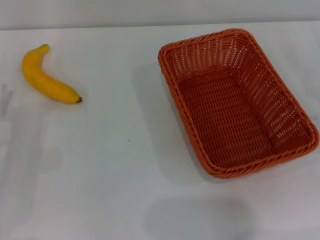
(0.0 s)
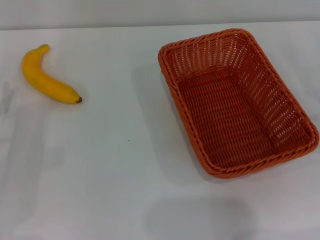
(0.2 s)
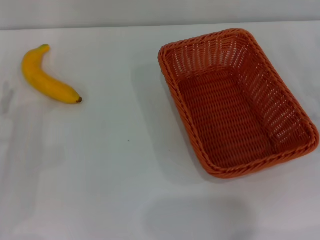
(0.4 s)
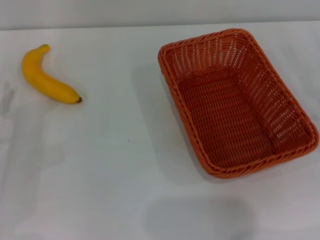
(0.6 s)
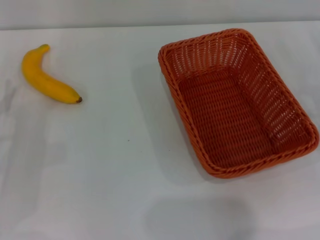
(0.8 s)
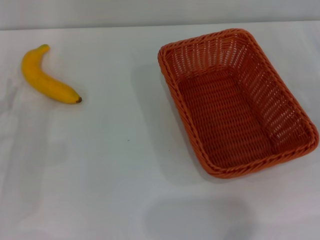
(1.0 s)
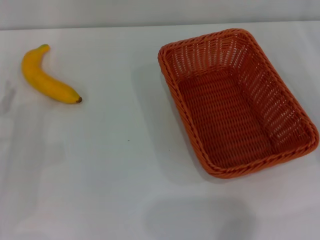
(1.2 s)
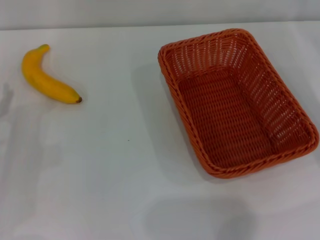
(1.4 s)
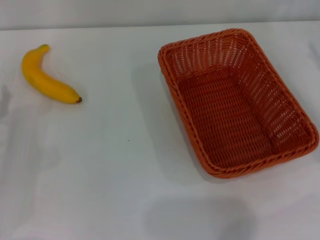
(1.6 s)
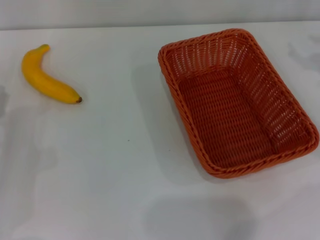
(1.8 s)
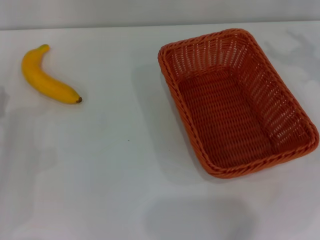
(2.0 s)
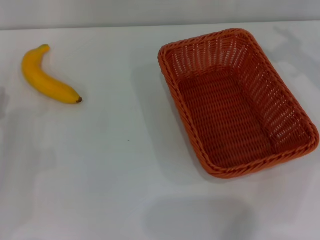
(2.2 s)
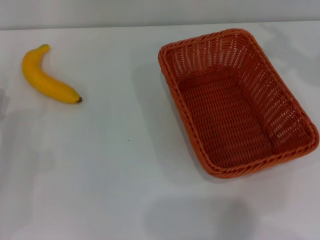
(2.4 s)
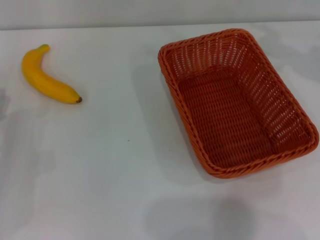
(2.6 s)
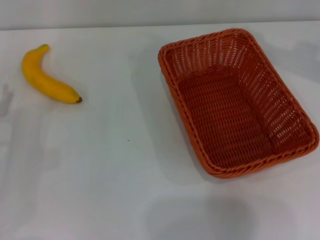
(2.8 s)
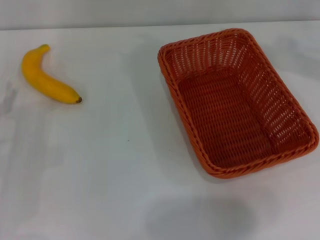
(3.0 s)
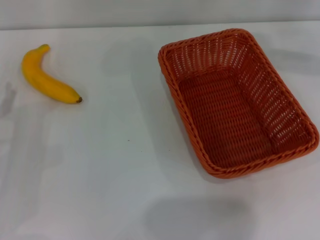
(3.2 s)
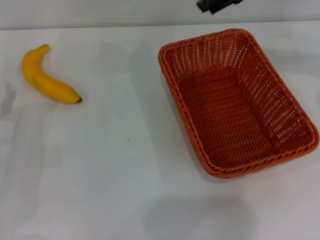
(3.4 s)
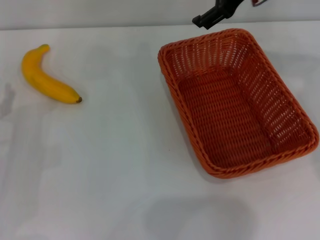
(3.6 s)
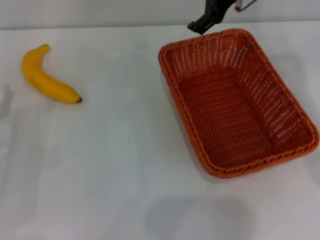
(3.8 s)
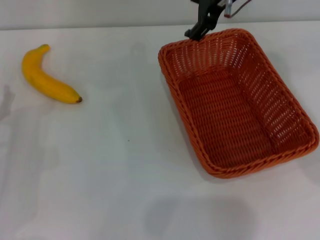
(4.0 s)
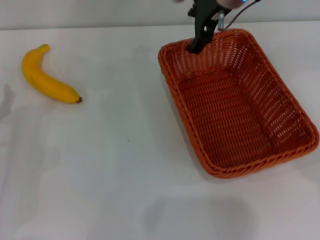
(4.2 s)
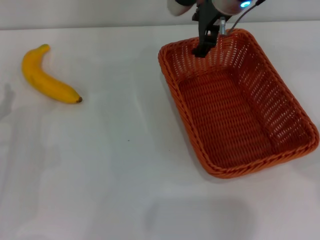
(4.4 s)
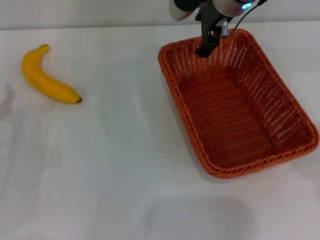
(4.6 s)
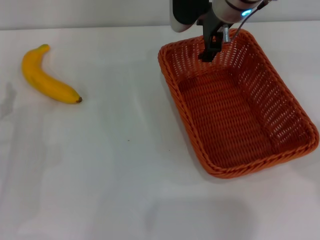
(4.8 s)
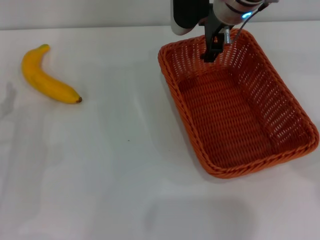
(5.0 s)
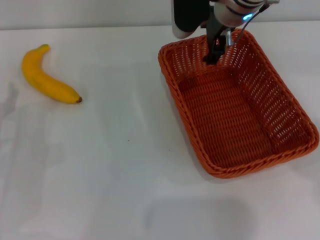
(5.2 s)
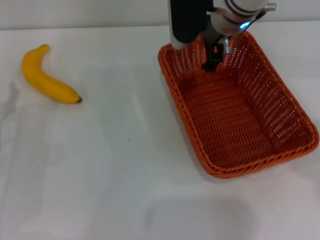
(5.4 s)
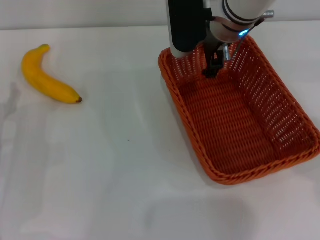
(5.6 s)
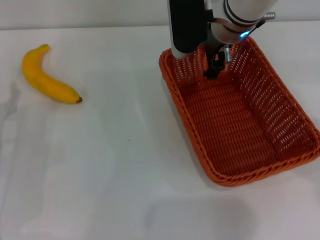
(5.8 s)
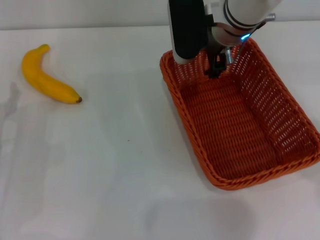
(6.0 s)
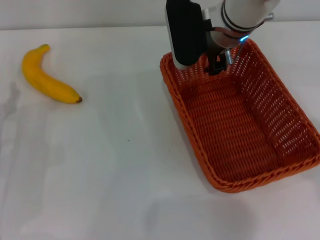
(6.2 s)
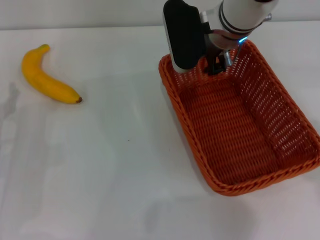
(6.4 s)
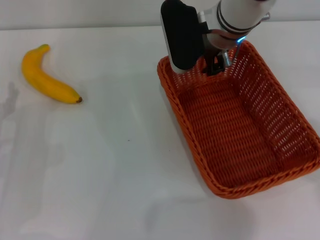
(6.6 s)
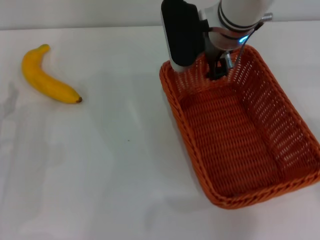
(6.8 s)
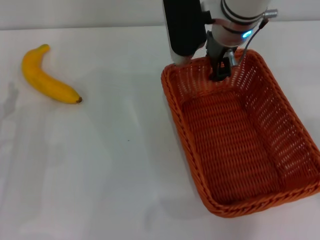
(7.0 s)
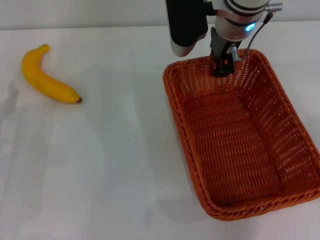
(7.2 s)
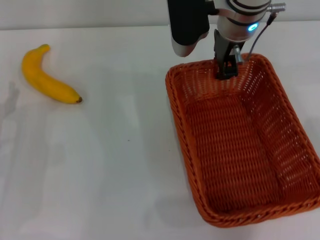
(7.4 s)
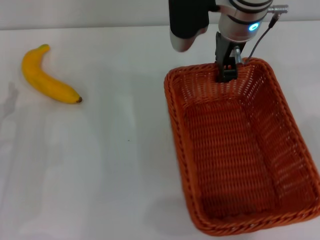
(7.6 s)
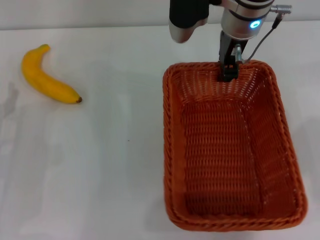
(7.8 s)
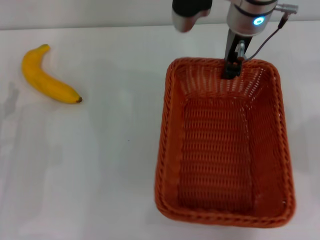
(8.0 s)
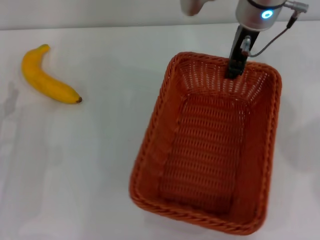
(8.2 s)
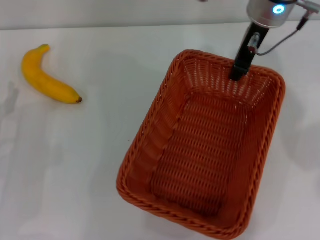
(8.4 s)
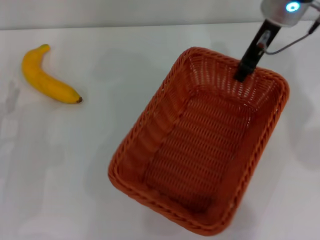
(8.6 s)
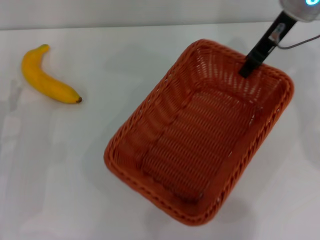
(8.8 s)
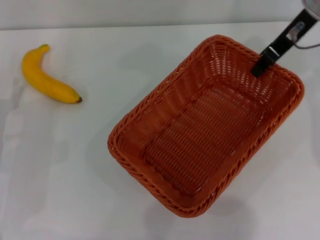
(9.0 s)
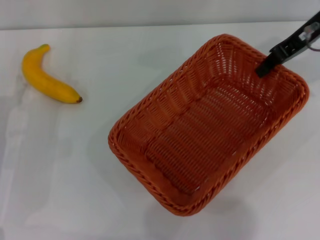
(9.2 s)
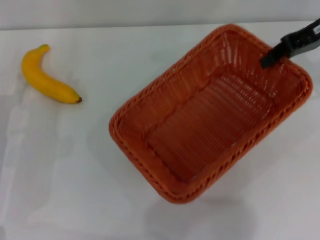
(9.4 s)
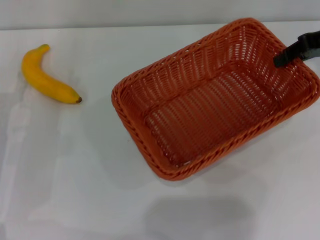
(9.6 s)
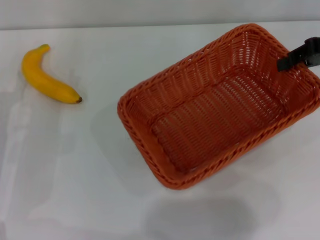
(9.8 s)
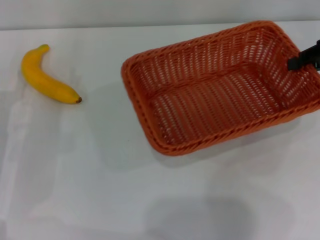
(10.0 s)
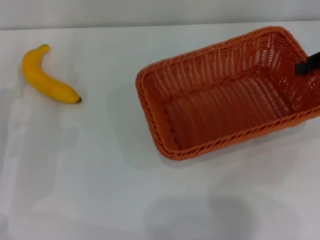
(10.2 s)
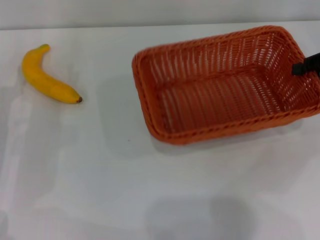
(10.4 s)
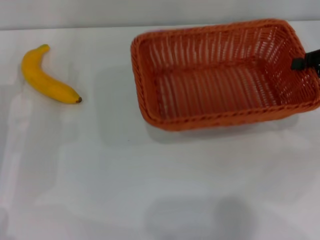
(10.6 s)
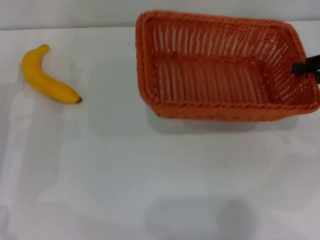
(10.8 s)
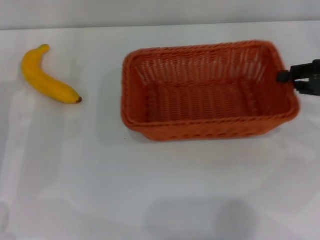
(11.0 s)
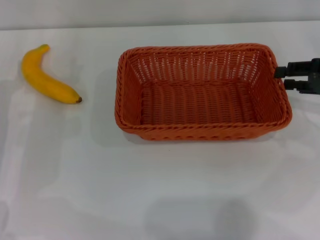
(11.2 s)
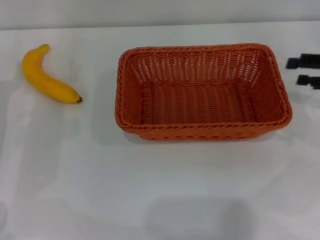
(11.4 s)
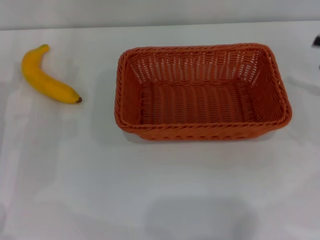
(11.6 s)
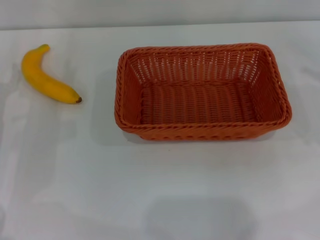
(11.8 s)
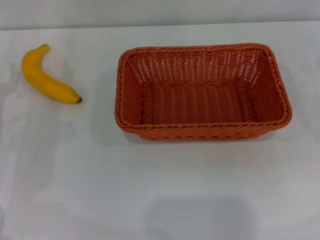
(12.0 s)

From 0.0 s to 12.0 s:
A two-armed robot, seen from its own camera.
Step, from 0.0 s to 9.2 s: Pick up the light basket with the right gripper.
Step, from 9.6 s to 11.8 s: Place the light basket in the center of view with the right gripper.
From 3.0 s to 4.4 s: The right gripper moves to the left, roughly 15 cm.
From 4.4 s to 6.0 s: The grippers make only small movements.
From 6.0 s to 7.6 s: The right gripper closes.
From 7.6 s to 9.0 s: The right gripper shifts some 15 cm to the right.
From 9.0 s to 10.4 s: The right gripper is displaced to the right, downward and backward by some 15 cm.
From 10.4 s to 12.0 s: The right gripper heads to the right and backward, covering about 10 cm, and opens up.

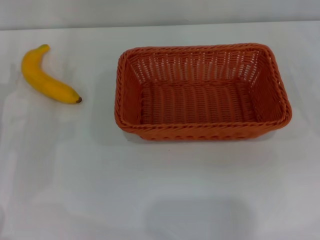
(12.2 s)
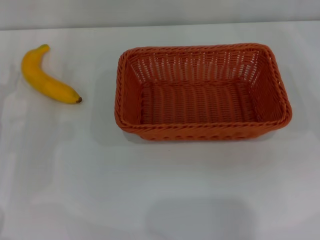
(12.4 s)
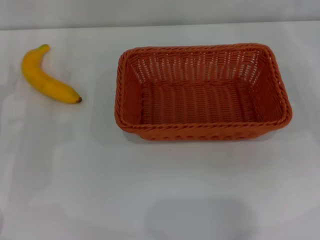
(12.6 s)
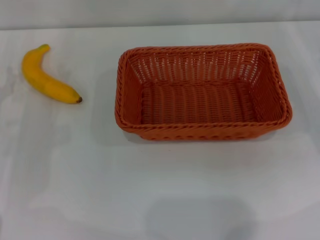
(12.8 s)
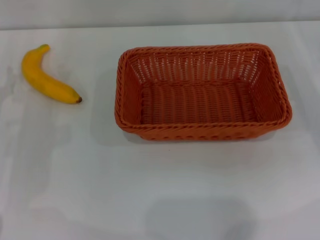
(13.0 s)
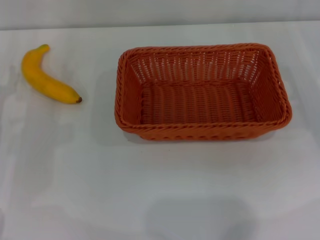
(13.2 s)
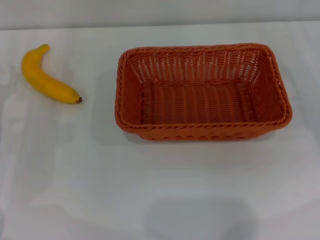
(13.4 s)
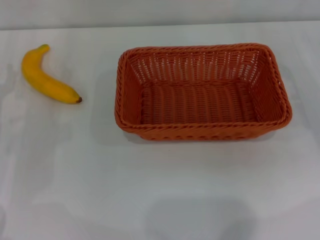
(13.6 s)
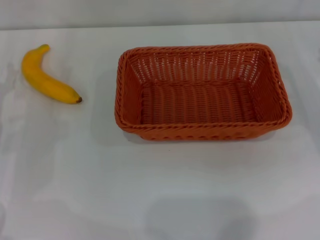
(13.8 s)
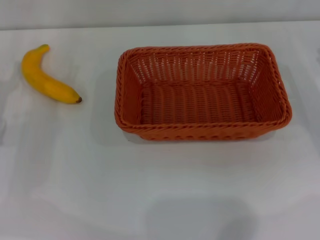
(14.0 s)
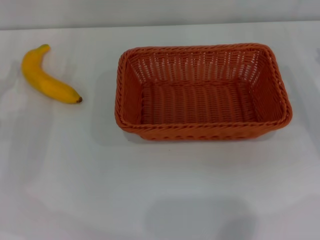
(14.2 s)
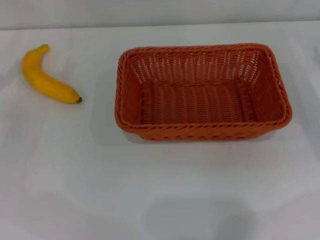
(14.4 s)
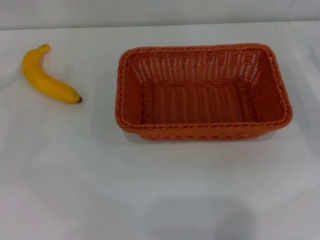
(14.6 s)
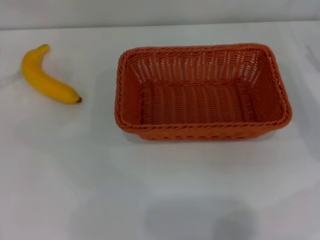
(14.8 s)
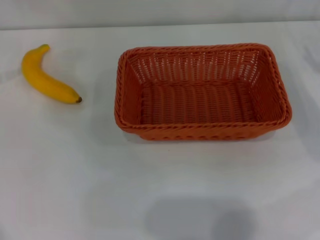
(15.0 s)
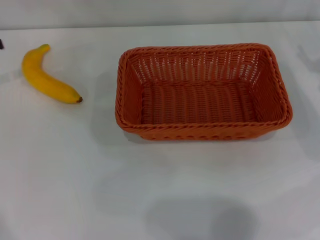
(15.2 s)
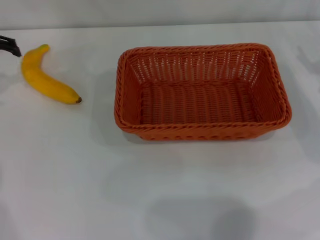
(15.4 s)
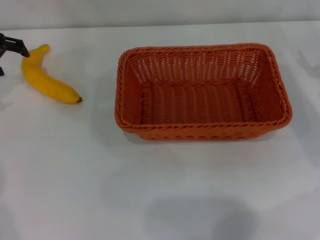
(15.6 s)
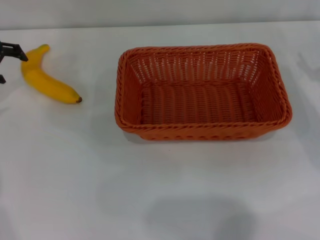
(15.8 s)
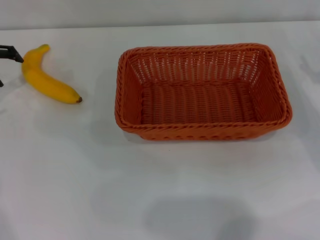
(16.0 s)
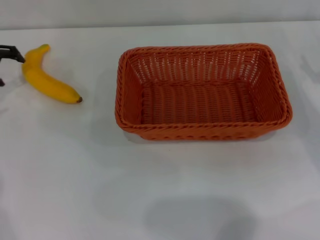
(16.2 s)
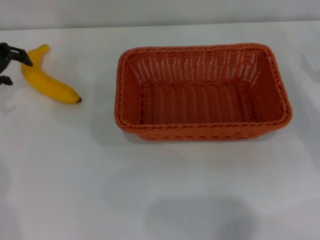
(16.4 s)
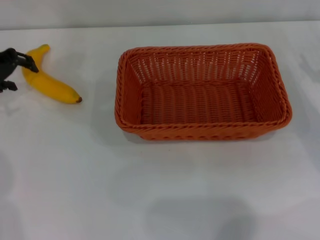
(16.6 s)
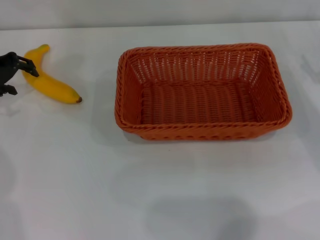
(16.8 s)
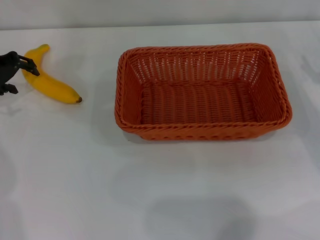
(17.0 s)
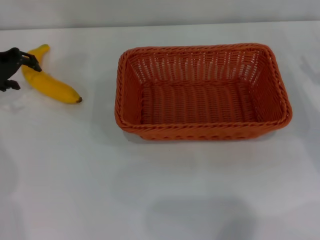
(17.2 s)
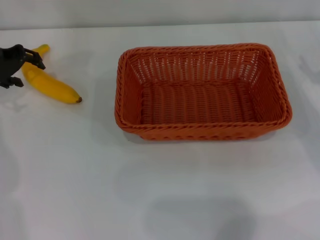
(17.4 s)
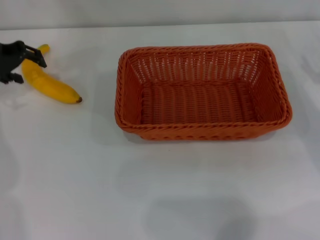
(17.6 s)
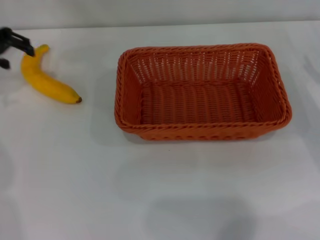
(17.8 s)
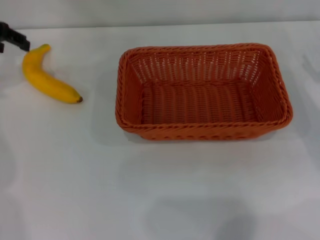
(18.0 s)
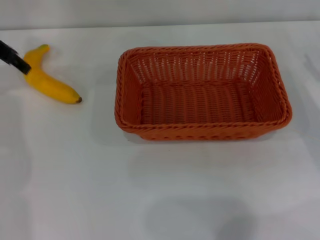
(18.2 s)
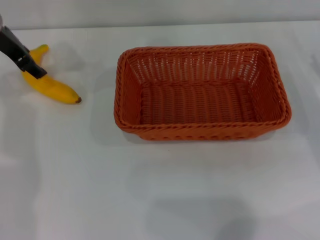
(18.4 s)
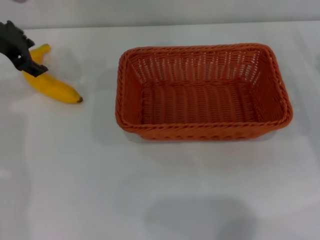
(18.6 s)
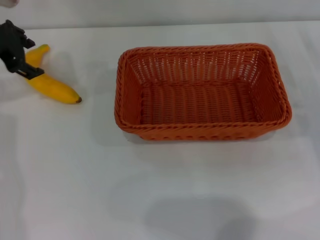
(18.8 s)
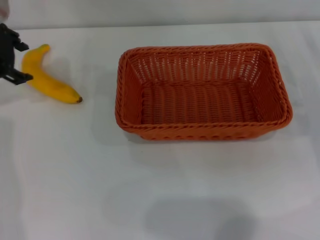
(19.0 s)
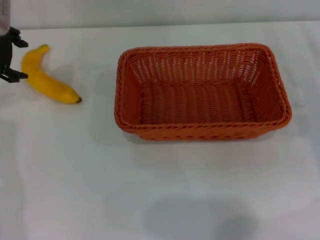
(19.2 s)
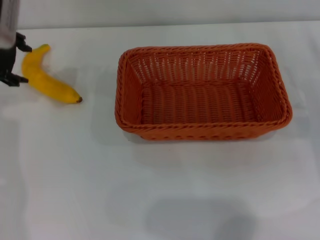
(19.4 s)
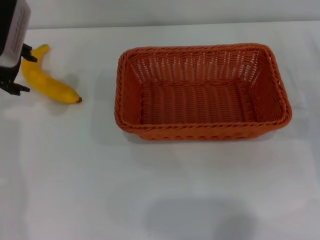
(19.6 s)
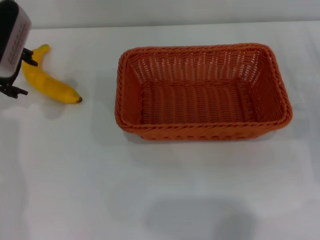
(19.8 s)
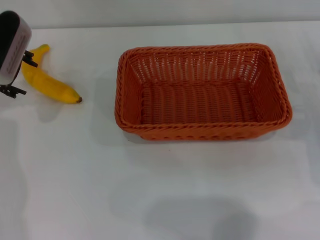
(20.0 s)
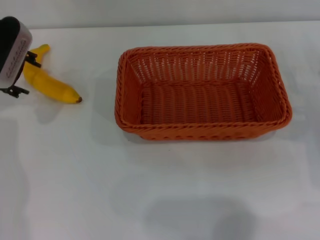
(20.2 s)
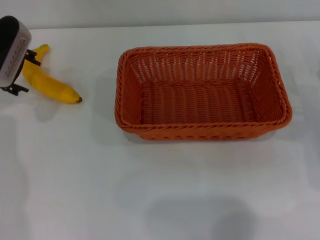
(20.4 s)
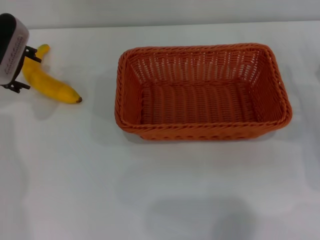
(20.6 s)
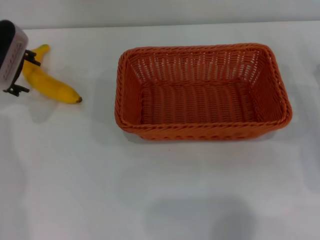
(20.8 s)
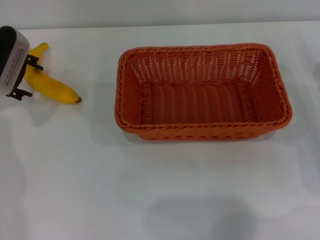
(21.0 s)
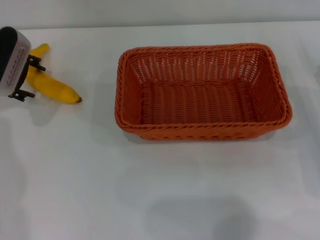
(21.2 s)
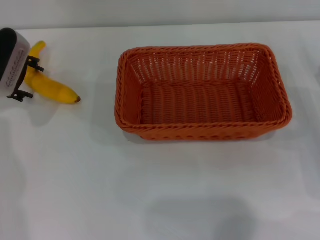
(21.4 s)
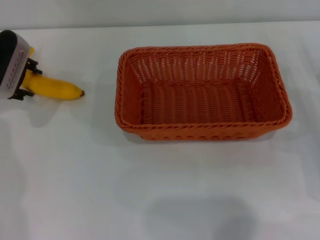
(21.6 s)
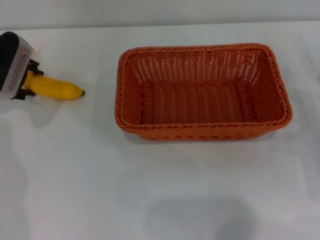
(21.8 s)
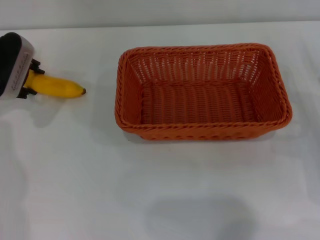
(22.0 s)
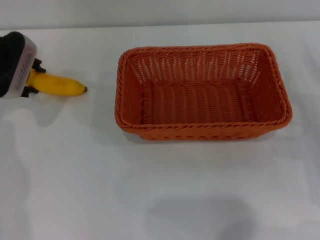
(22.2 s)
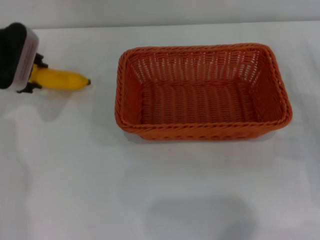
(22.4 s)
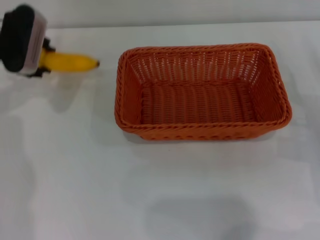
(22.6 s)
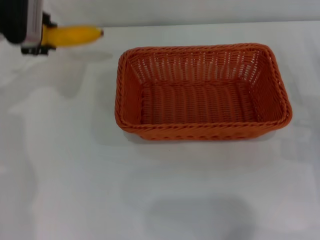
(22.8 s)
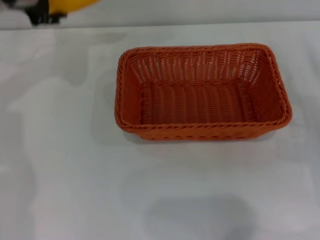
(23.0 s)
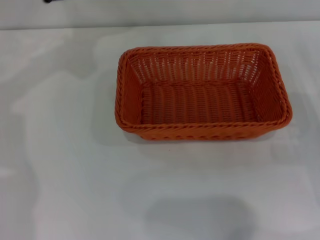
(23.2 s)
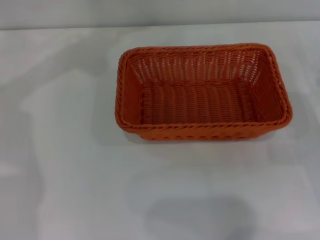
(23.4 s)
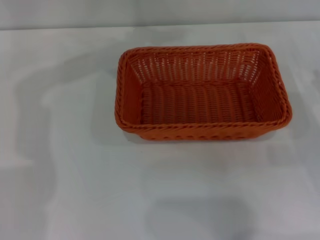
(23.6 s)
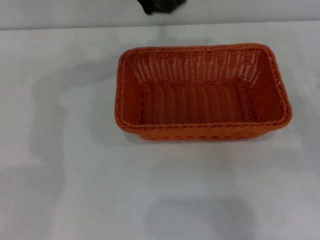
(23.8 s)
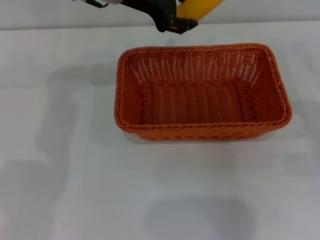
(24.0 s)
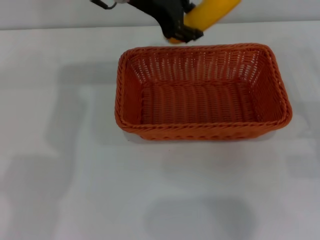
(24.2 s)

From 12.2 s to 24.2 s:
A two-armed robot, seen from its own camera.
Step, from 12.2 s to 22.6 s: Pick up the banana with the left gripper.
From 15.2 s to 16.6 s: The left gripper is displaced downward by approximately 5 cm.
From 16.6 s to 18.2 s: The left gripper goes approximately 5 cm upward.
From 19.8 s to 21.2 s: The grippers stay close to where they were, moving slightly.
From 21.2 s to 22.6 s: The left gripper closes its fingers.
From 22.6 s to 24.2 s: The left gripper travels to the right and upward by approximately 20 cm.
